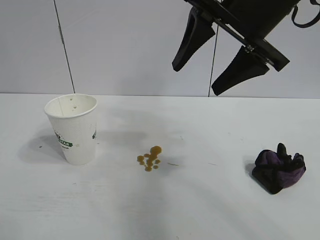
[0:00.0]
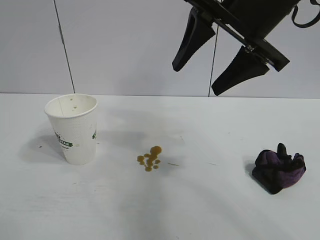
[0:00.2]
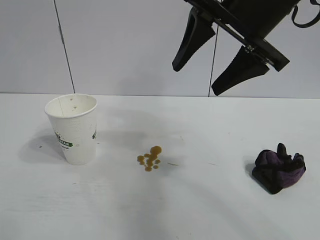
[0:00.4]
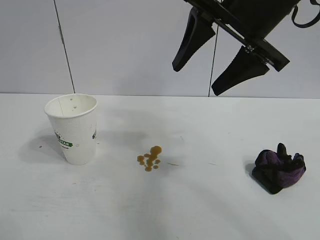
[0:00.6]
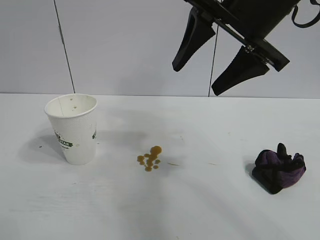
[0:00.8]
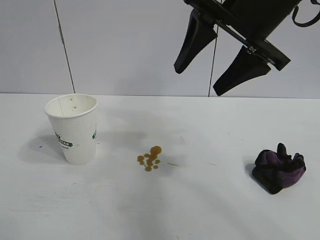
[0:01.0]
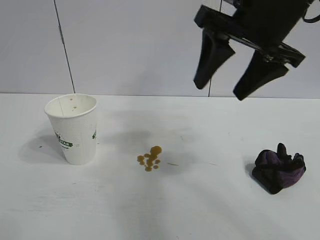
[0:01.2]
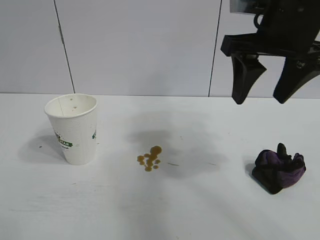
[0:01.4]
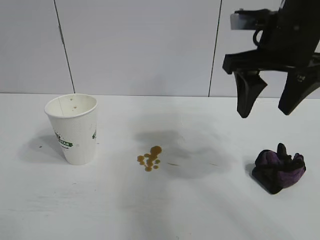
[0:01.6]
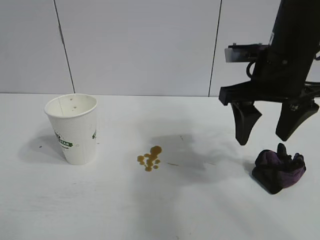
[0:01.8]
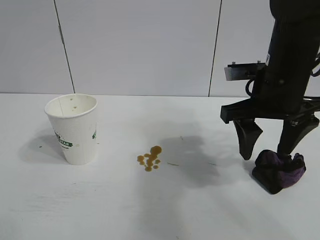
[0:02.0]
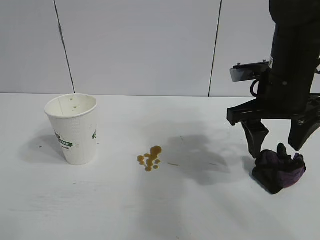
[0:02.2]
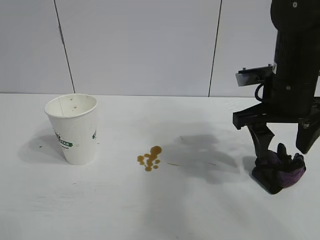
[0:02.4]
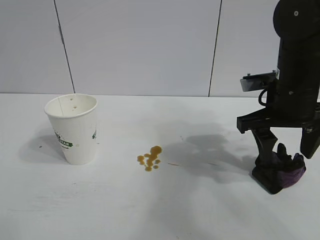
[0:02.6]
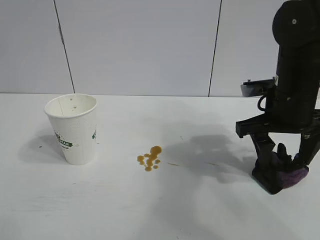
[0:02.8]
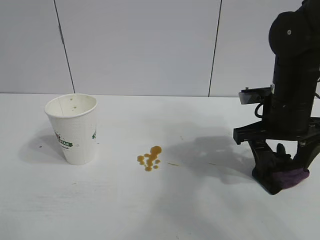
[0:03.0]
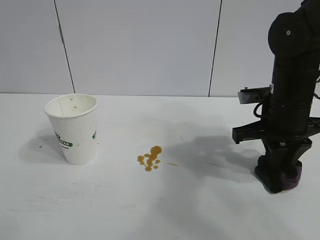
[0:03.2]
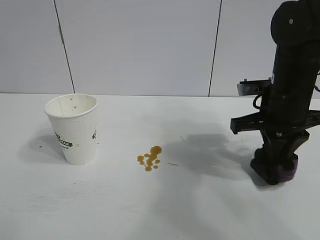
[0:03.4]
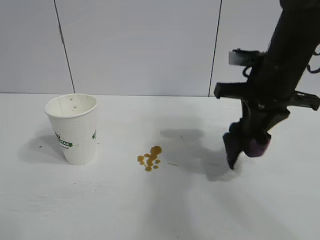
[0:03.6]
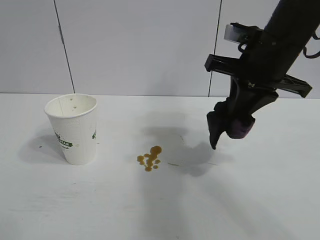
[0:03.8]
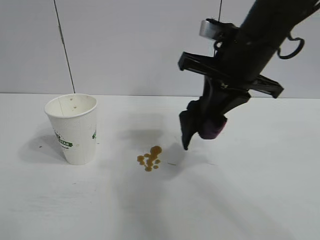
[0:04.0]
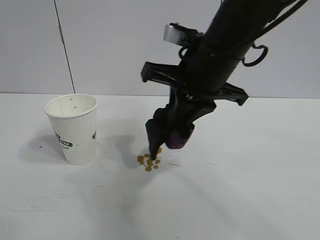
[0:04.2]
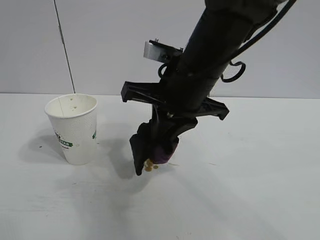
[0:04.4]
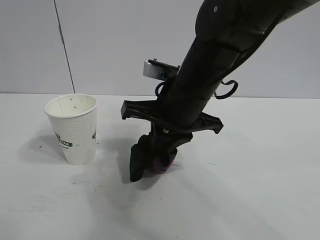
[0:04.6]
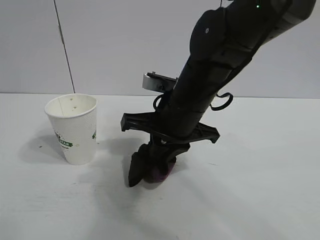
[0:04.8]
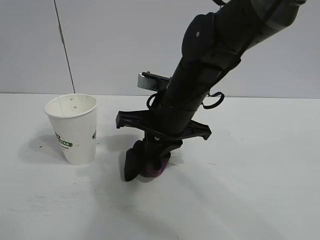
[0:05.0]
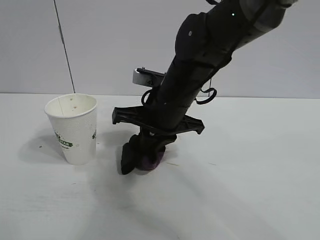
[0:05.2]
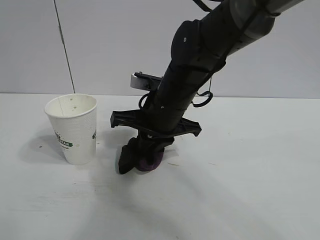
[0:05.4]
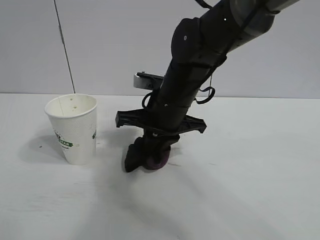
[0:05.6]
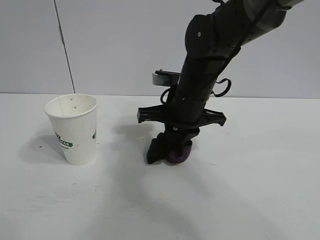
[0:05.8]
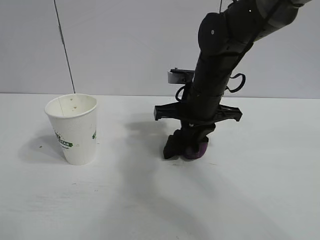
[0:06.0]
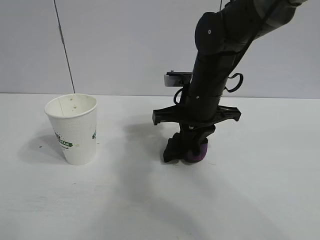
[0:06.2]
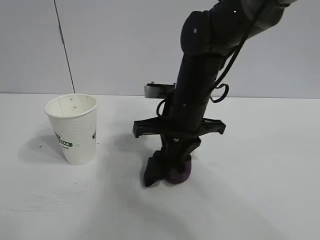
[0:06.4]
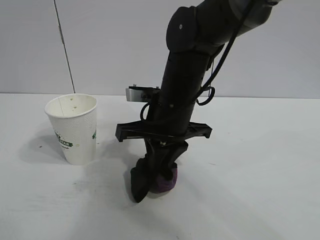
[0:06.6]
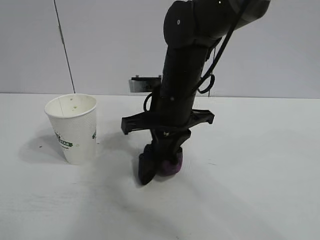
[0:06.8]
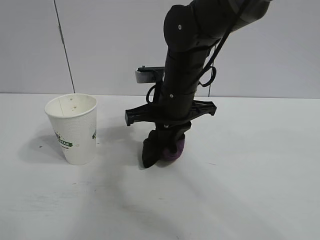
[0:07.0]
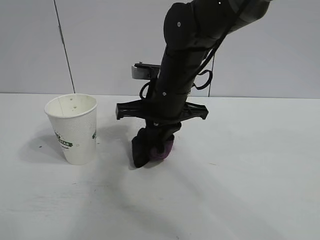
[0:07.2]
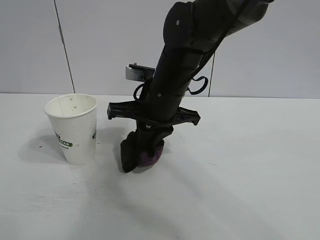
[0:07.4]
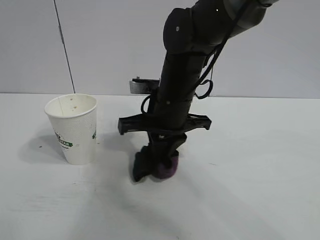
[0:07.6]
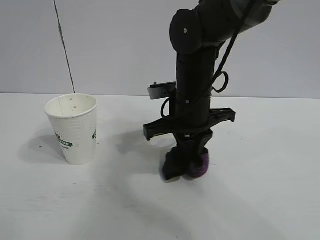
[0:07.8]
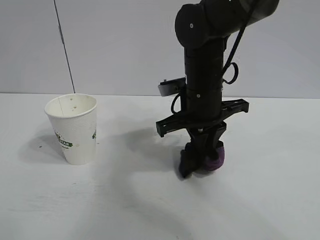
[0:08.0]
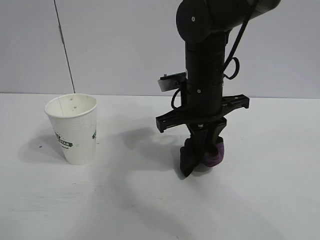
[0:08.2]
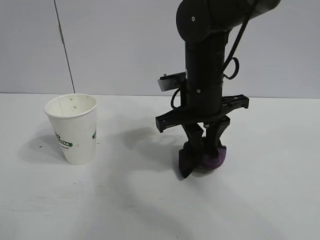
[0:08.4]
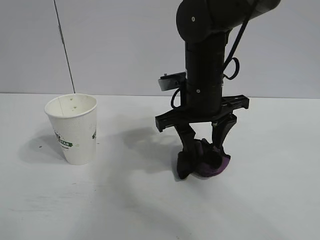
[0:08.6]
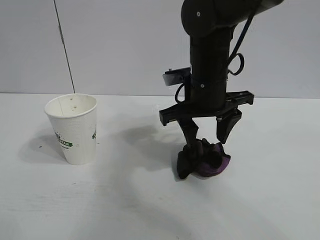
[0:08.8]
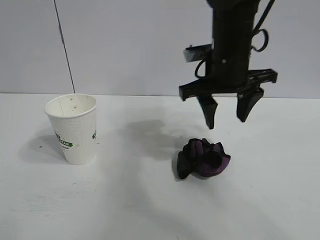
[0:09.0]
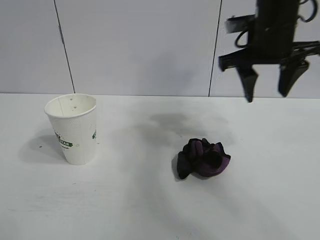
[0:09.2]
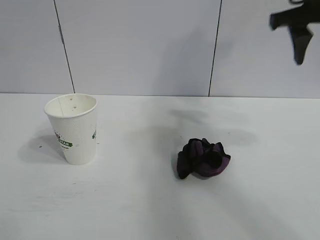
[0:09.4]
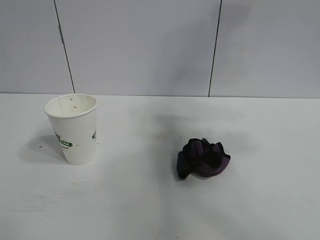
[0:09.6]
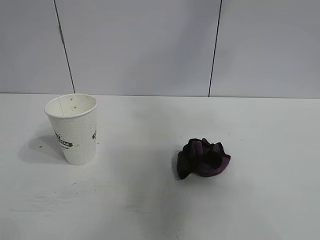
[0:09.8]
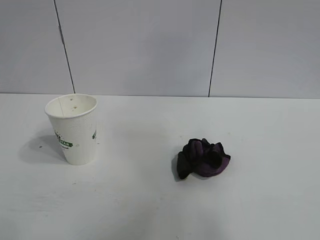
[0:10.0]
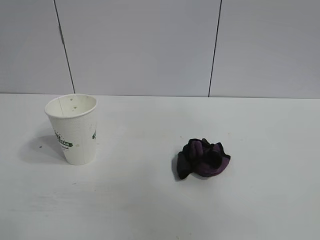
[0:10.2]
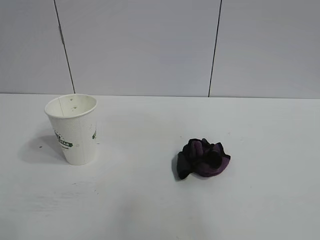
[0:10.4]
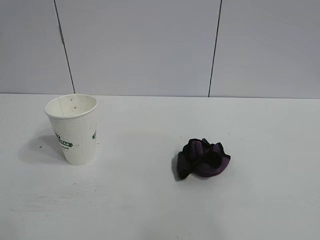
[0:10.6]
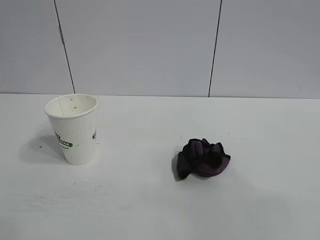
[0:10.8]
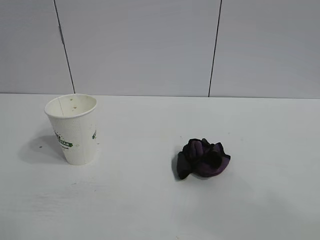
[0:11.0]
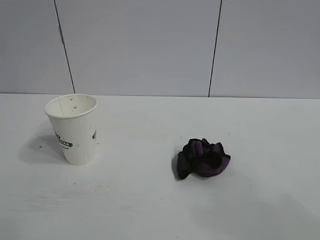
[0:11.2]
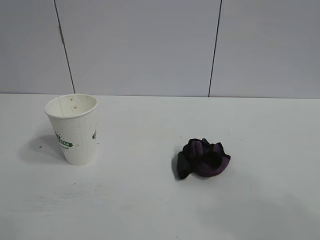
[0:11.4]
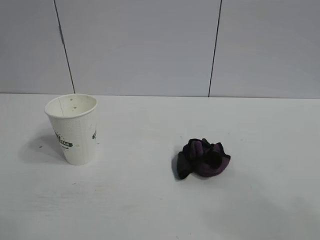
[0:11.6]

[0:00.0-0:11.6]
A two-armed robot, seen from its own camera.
Task of the whole recording: the left gripper pick up the fallen cup and place it upright, the right gripper grasp the black rag and wipe the stain on the table, the right gripper put the black rag back in its original position.
Step, 0:00.0 to 0:03.2: Grasp the rag with right gripper.
Step, 0:03.4 to 0:07.8: Wipe the stains off the table with the rag with right gripper.
Step, 0:08.0 to 0:08.4: Place the rag on the table with right gripper.

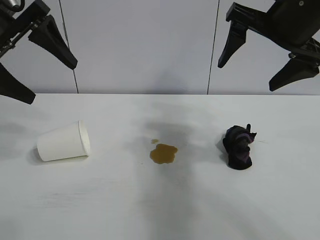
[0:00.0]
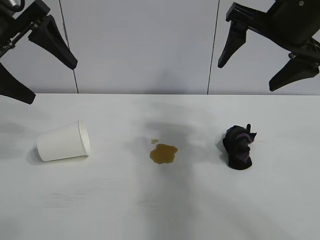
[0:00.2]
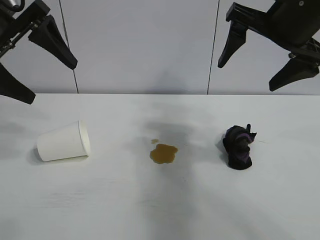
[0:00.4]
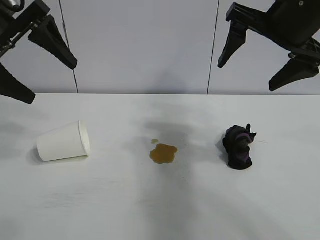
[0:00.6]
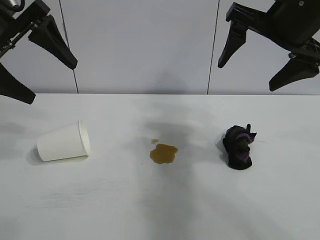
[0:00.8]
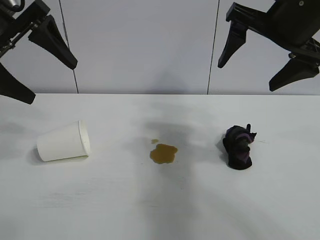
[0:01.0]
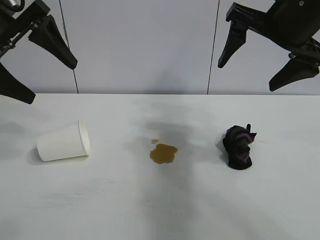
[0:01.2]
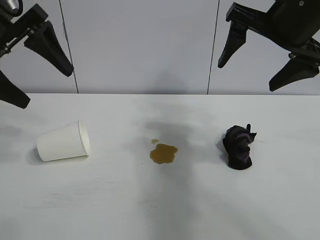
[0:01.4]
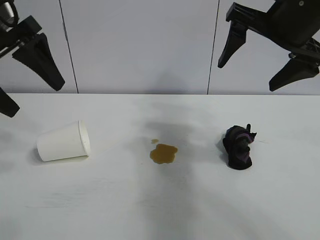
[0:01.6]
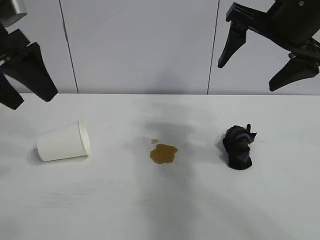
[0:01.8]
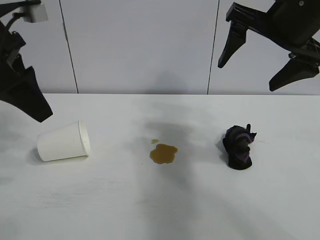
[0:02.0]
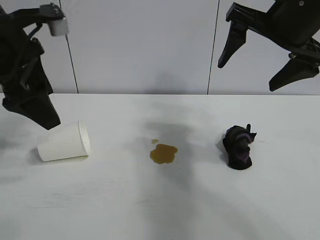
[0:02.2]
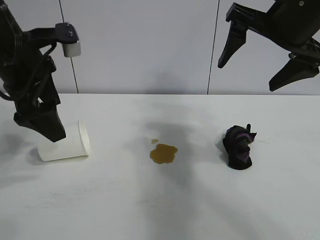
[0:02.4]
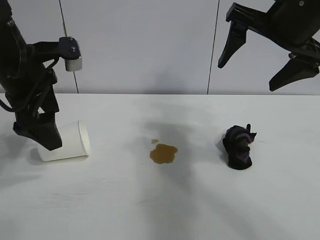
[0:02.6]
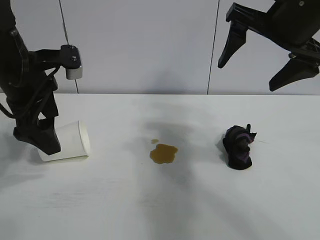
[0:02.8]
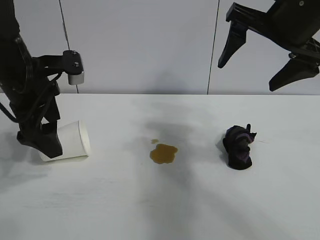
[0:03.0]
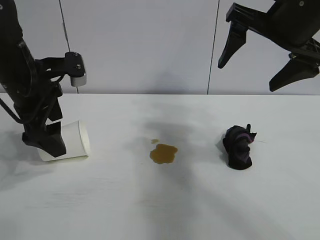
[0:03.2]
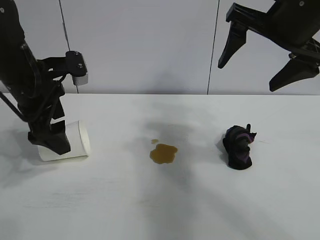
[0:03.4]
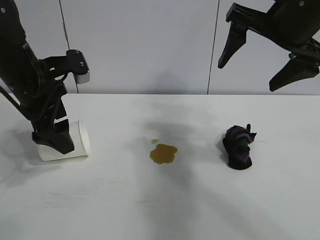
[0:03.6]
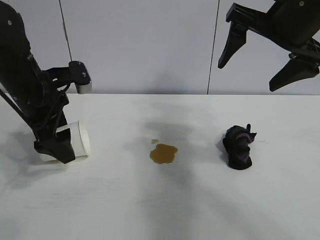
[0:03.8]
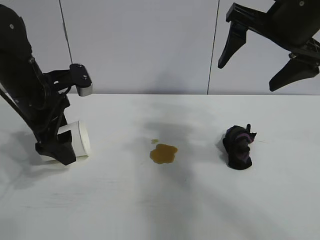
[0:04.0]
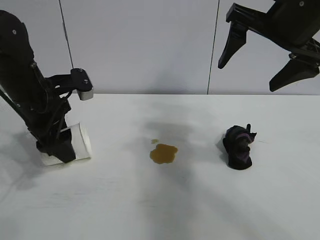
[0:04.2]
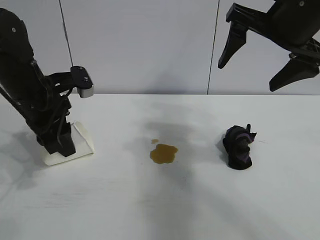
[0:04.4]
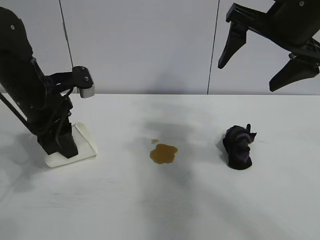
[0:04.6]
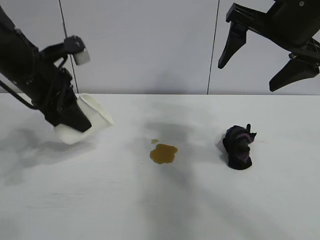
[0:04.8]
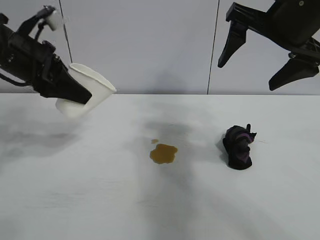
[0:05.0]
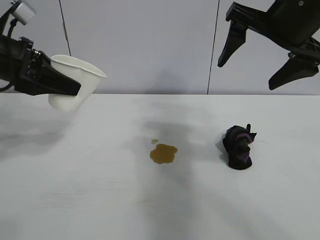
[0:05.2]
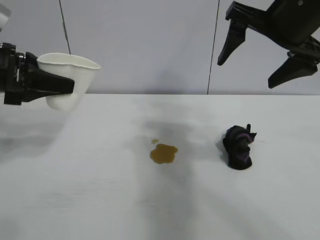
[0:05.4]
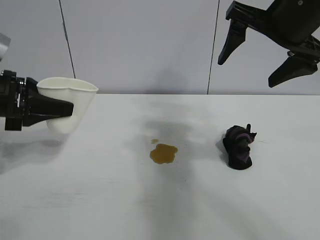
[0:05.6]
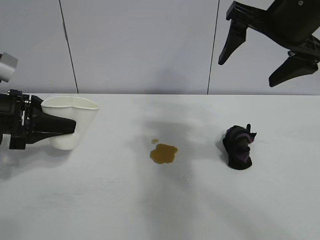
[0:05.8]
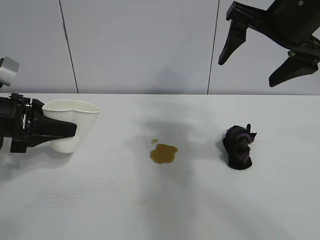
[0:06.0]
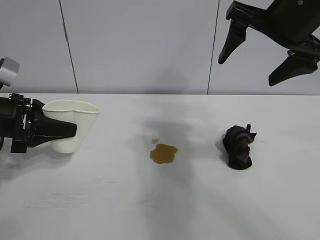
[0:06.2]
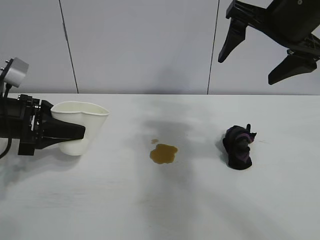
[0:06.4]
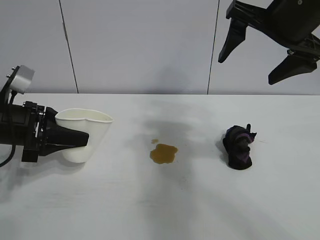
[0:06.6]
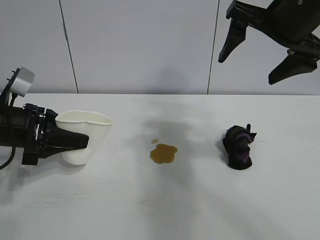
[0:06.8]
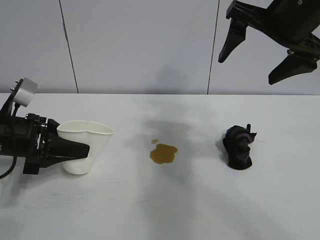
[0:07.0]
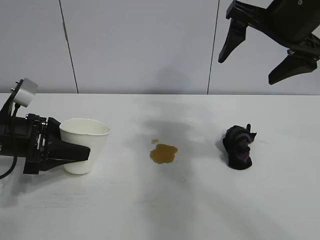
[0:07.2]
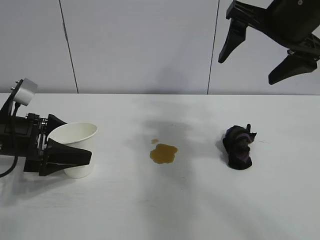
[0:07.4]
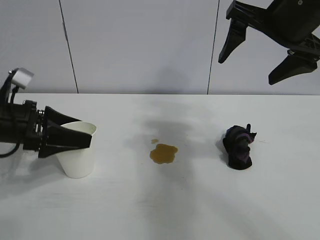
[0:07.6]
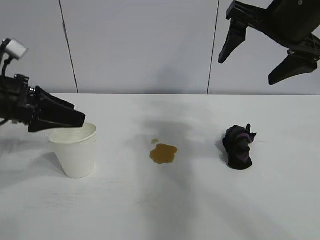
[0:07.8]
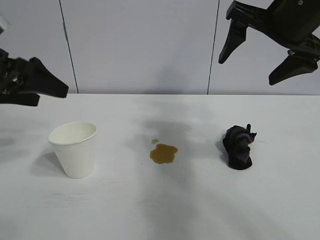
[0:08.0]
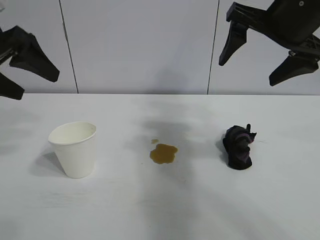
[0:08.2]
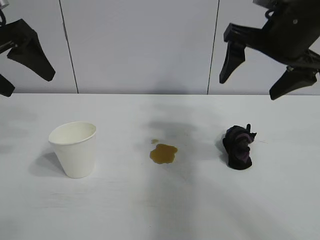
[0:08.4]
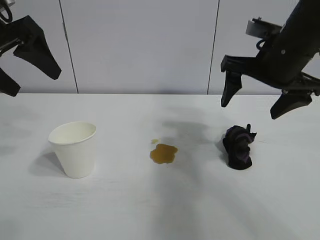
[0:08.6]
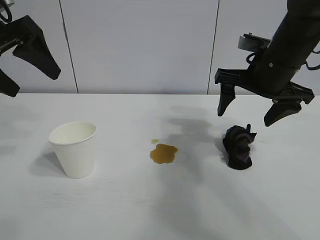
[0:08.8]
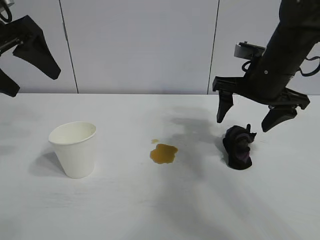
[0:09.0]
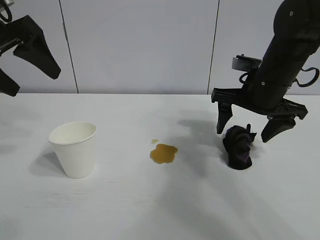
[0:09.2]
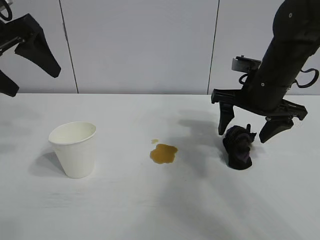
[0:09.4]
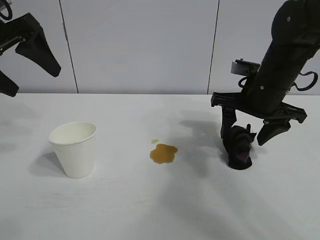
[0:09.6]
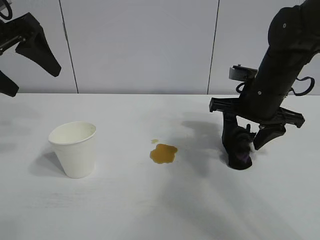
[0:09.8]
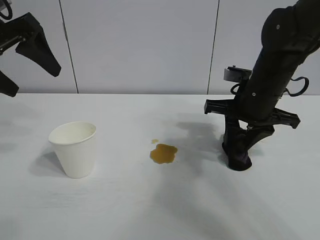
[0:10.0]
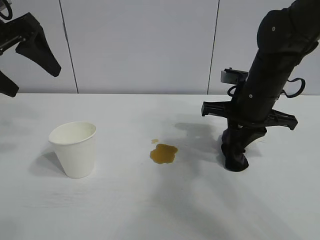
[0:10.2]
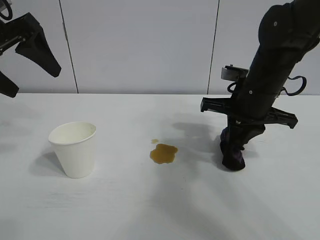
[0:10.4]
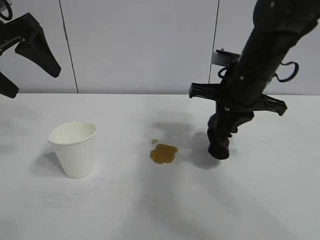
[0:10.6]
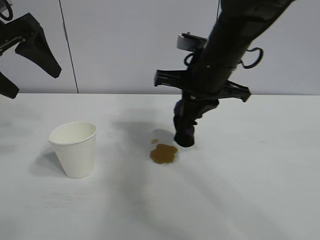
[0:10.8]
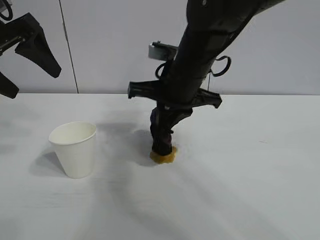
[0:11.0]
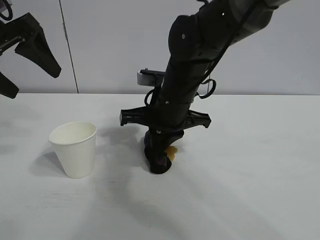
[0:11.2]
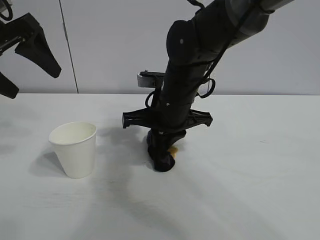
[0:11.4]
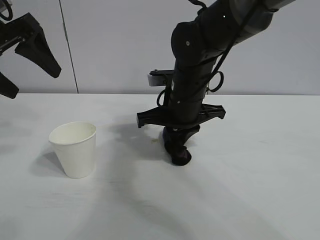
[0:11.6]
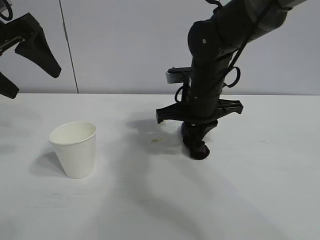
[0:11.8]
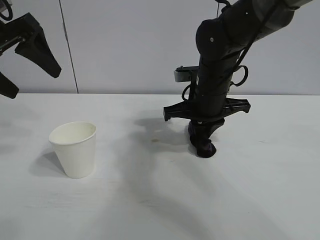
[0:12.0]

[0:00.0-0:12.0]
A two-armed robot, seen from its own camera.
Task of the whole recording: the left gripper pick up the fallen cup and place it upright, the right gripper grasp the black rag and wipe the stain on the table, the right gripper put the black rag back in its original position.
Step, 0:01.4 to 0:04.4: Grasp the paper cup with left gripper.
Step, 0:04.6 to 0:07.2: Stand the paper cup upright with left gripper.
Step, 0:07.6 to 0:10.0: Grasp the rag with right gripper.
